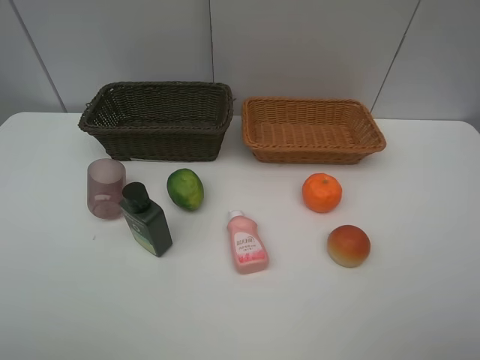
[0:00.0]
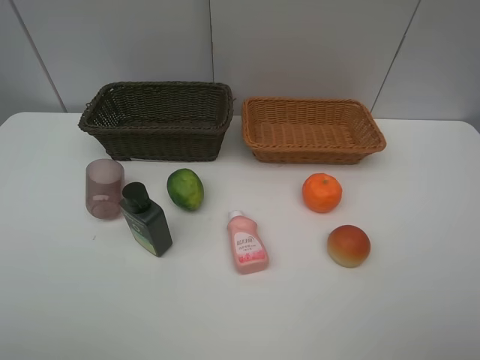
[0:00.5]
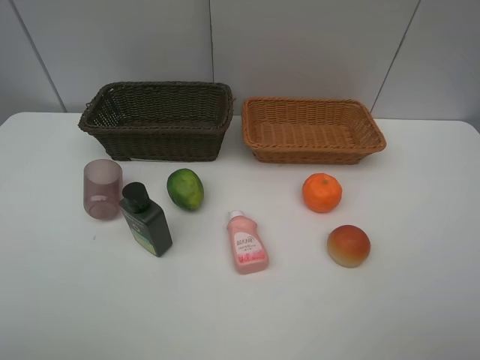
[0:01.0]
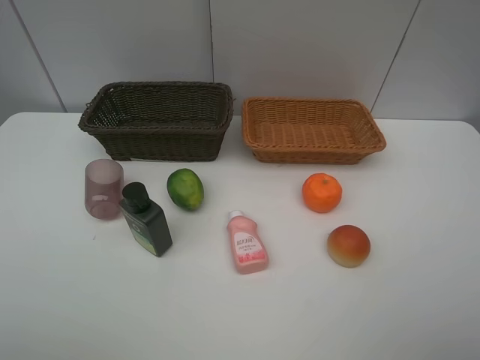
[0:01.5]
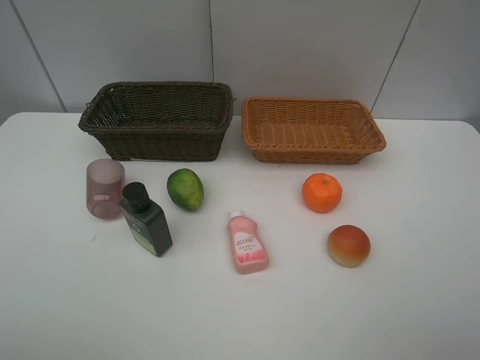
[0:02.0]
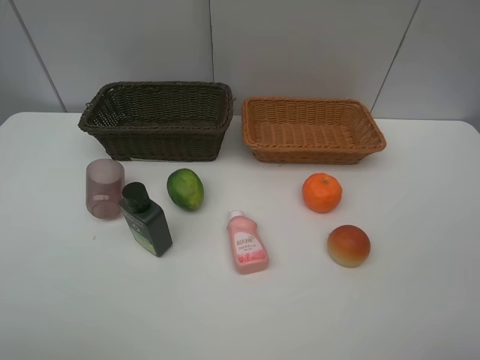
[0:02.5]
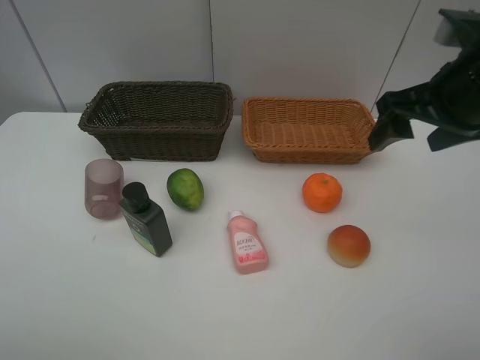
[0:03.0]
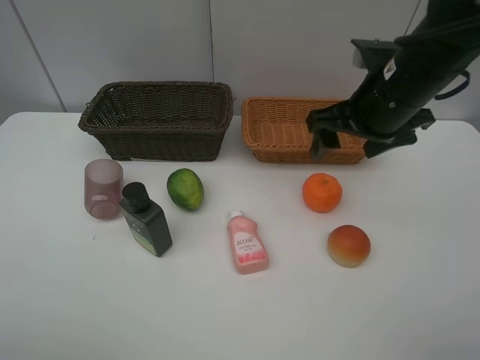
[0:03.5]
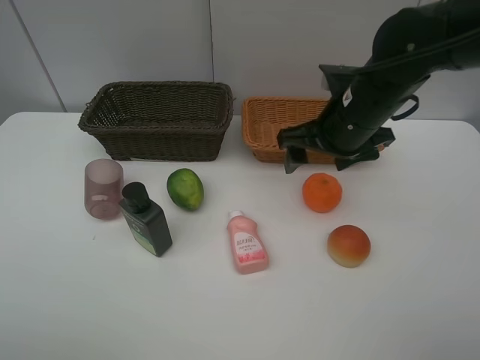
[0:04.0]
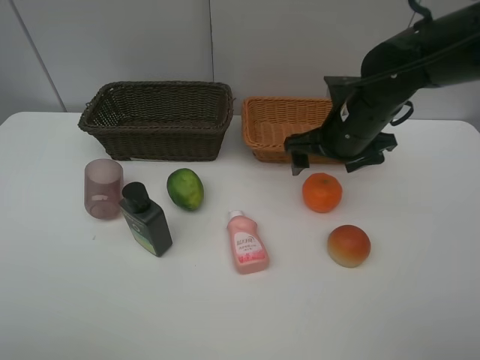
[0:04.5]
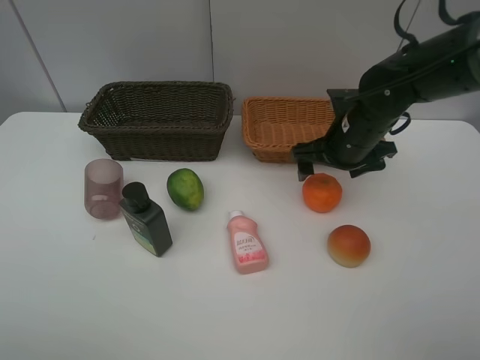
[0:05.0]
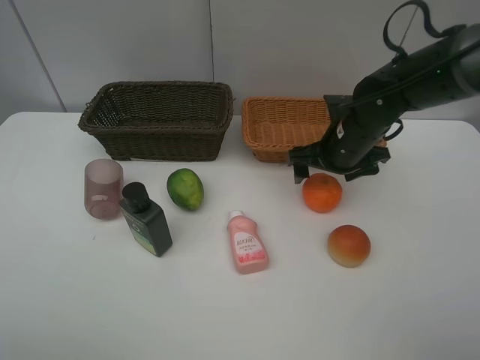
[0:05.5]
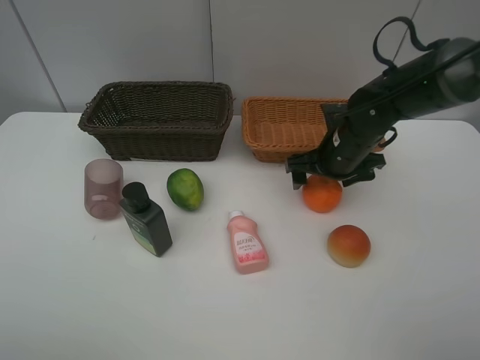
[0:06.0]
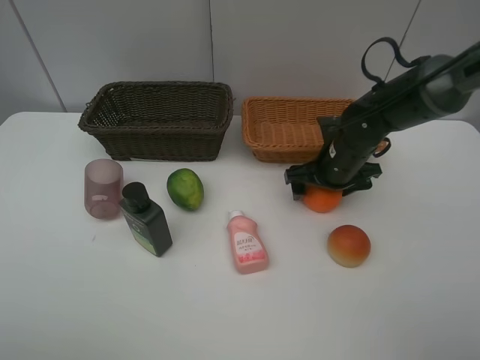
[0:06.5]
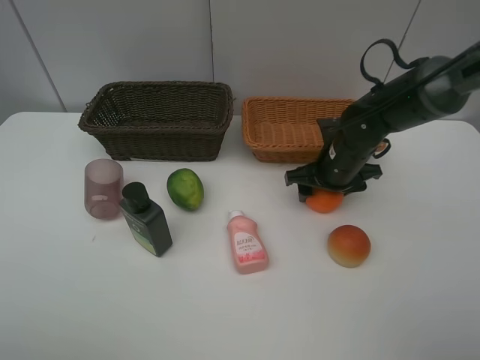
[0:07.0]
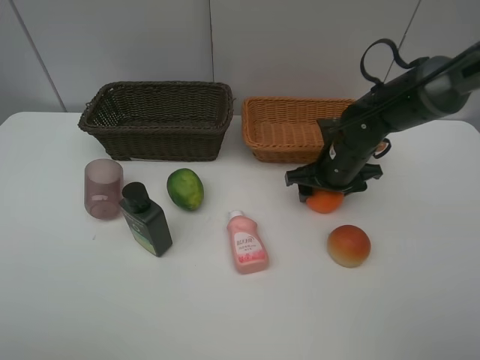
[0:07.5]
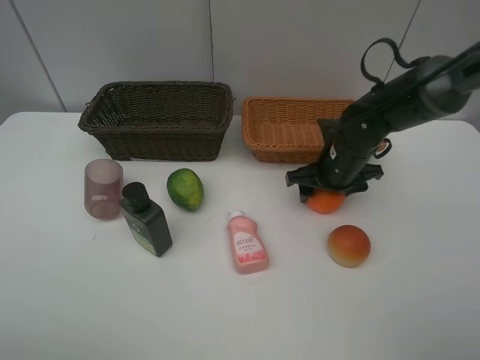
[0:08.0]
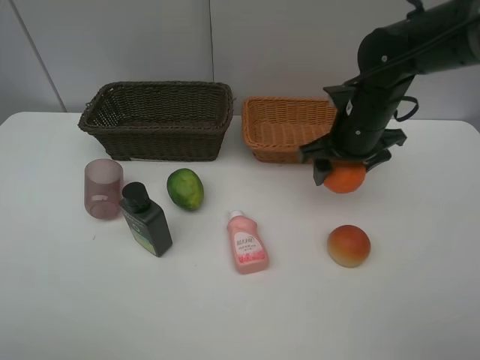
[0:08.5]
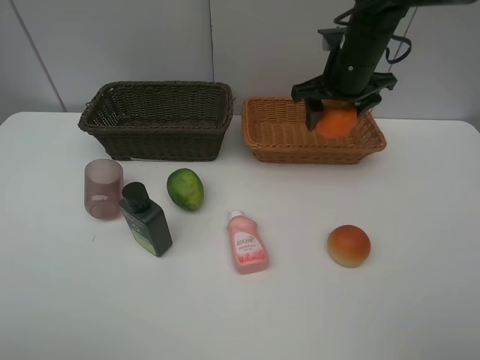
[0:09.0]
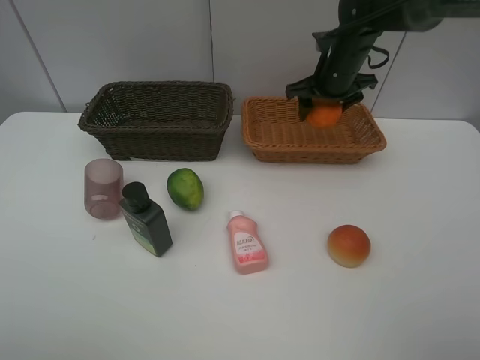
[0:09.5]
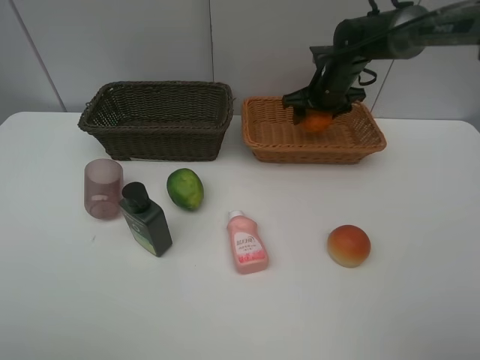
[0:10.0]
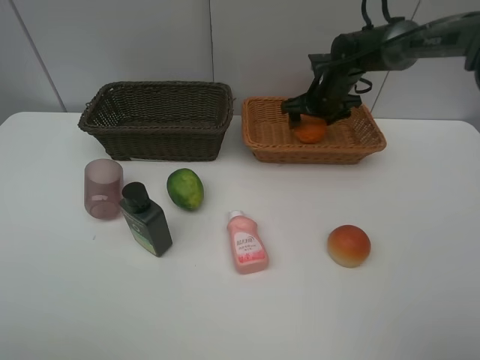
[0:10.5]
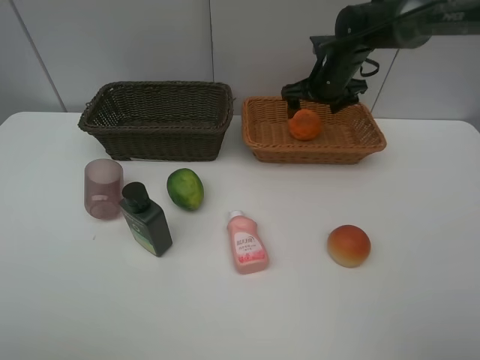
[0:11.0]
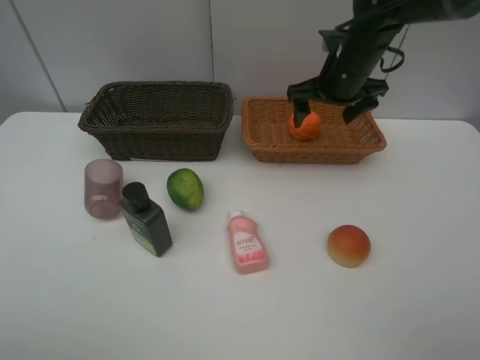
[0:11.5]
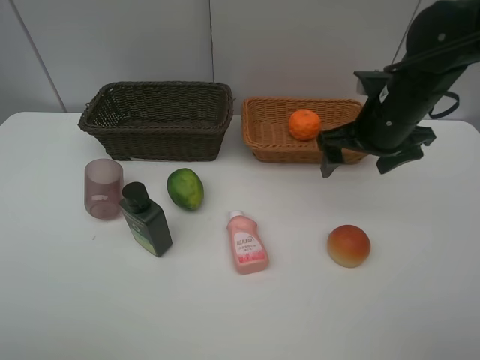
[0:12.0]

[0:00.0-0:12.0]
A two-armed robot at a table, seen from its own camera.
Task of the whole recording: place multiple objects separately in different baskets.
0:02.0 to 0:04.0: The right gripper goes approximately 35 cm forward and to the left.
0:04.0 to 0:06.0: The right gripper is displaced downward by about 10 cm.
0:06.0 to 0:08.0: The right gripper closes.
0:08.0 to 0:10.0: The right gripper shifts approximately 15 cm forward.
0:10.0 to 0:12.0: The right gripper is displaced backward by approximately 20 cm, and opens.

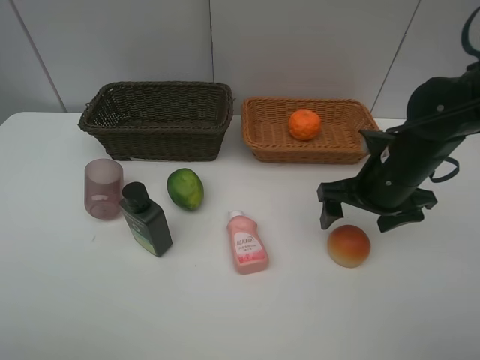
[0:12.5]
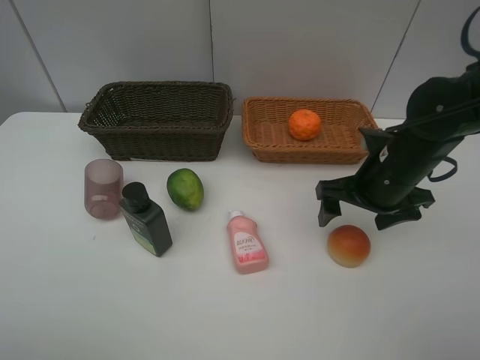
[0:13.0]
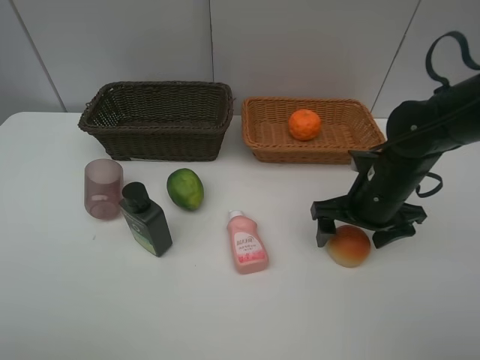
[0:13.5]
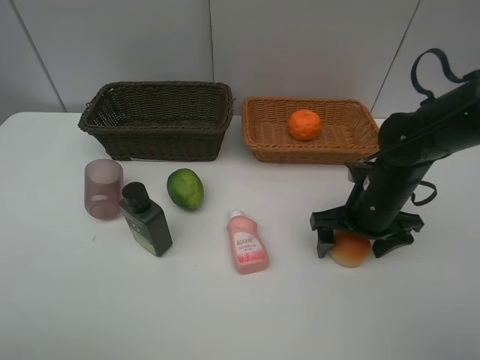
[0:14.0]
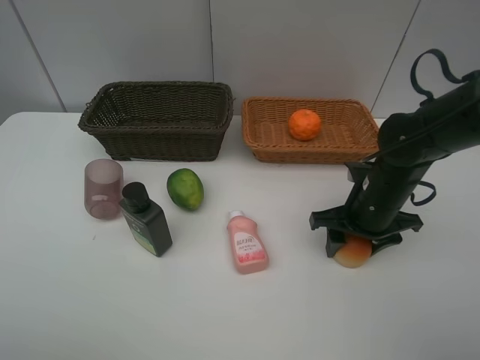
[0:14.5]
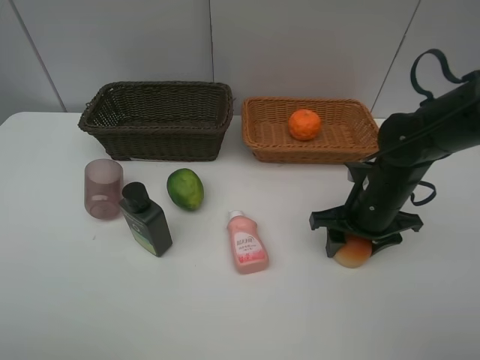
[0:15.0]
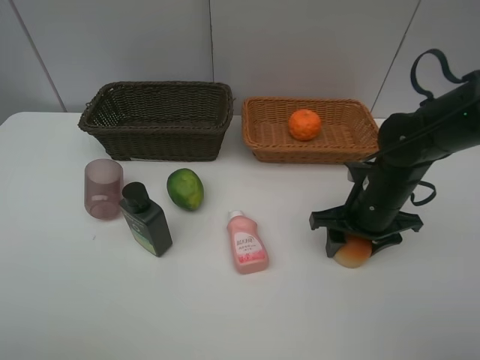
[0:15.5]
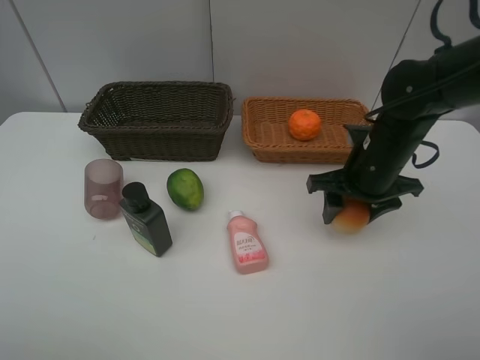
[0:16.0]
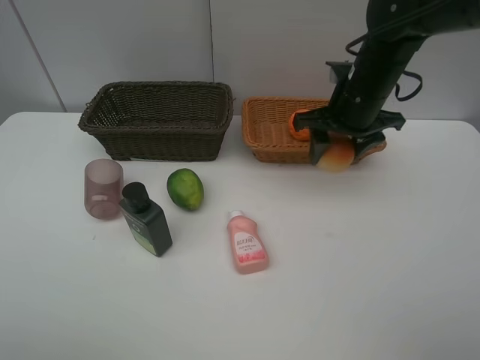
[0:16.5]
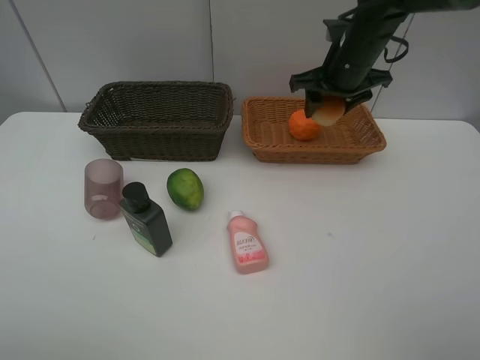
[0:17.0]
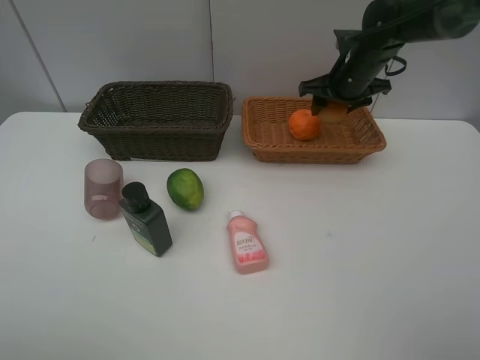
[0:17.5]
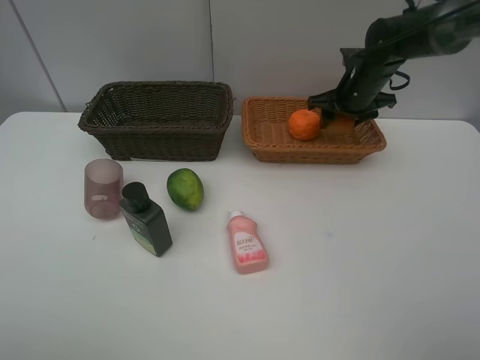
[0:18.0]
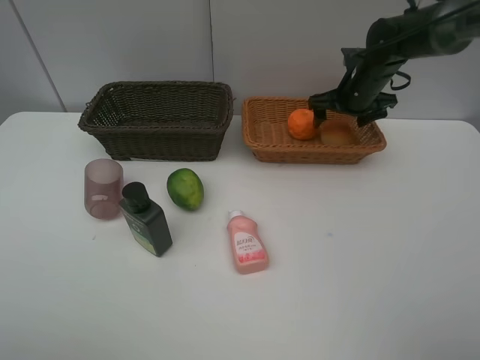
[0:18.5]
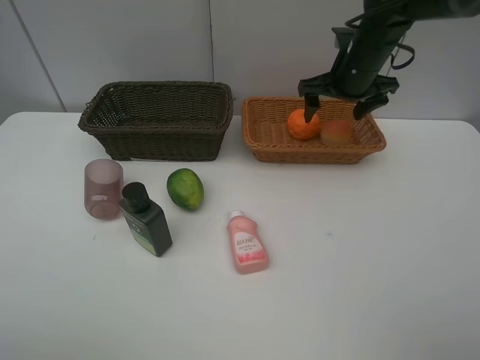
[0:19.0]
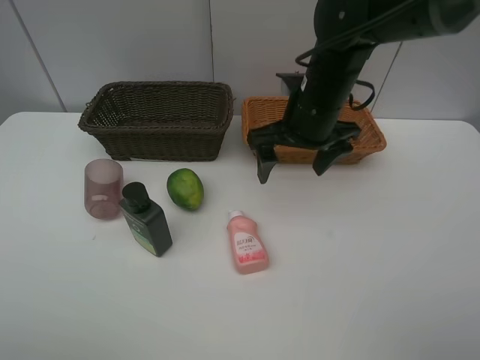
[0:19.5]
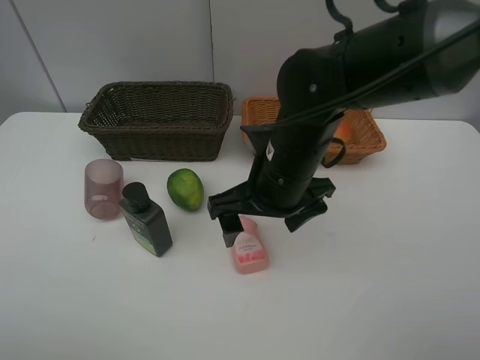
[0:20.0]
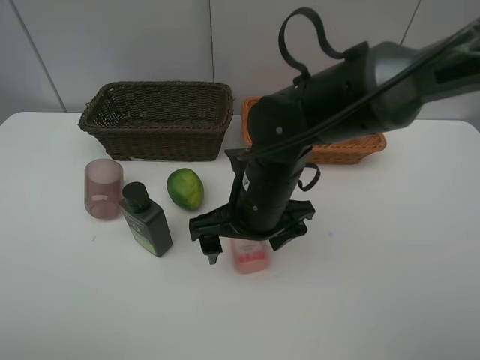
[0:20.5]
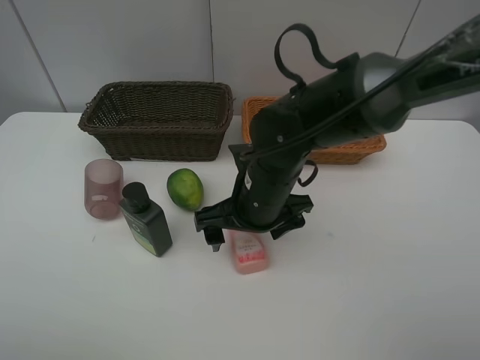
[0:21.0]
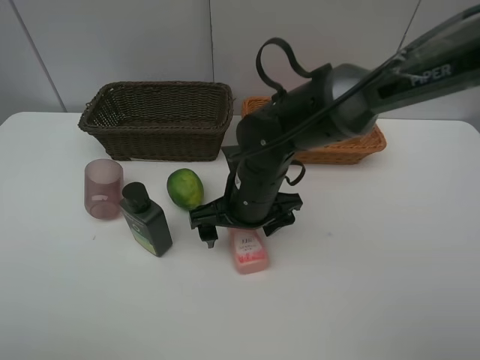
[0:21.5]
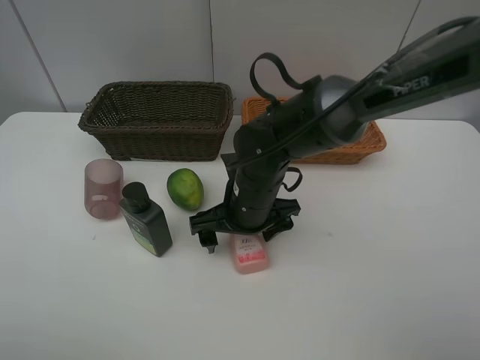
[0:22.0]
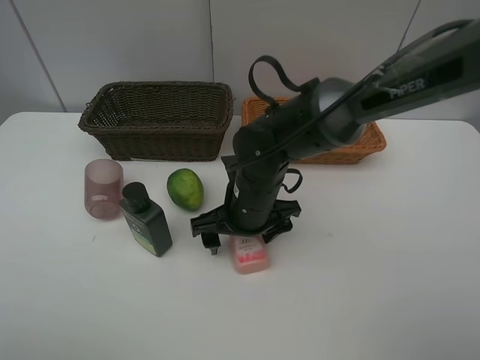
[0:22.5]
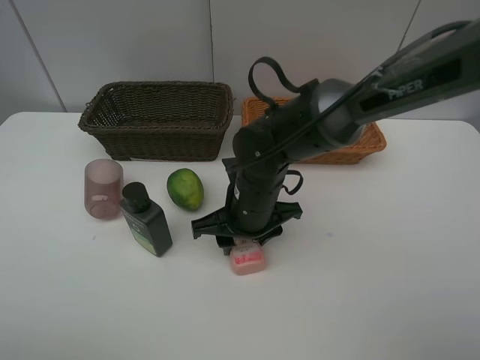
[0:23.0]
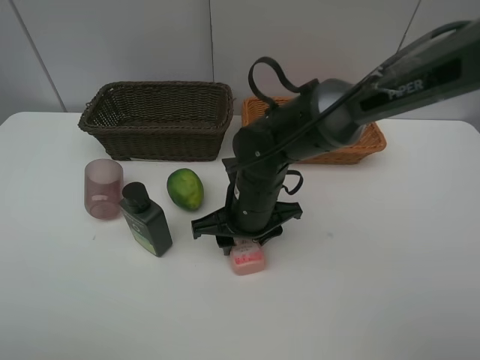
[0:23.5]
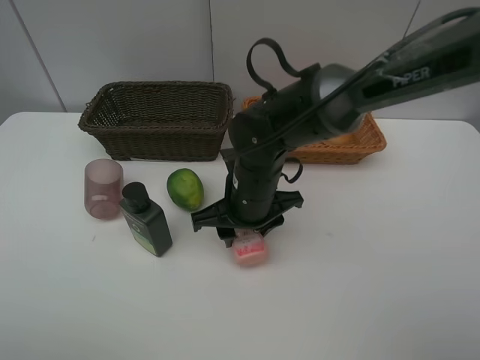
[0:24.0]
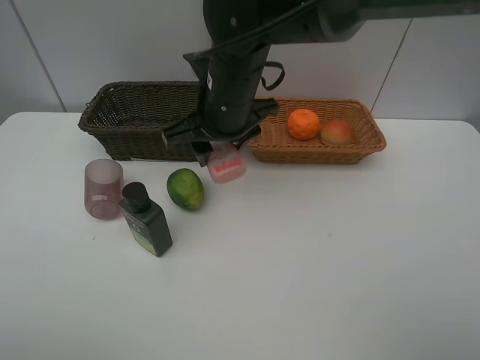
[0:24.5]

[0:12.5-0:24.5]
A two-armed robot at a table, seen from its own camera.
Task of the whole recording: place multiple objects separately in different baskets.
0:12.5 to 0:14.5: The right gripper closes up.
0:14.5 to 0:16.5: The right gripper is displaced upward and forward by approximately 15 cm.
0:16.5 to 0:18.5: The right gripper heads forward and to the right, covering about 10 cm, and opens its fingers.
0:18.5 to 0:20.5: The right gripper moves backward and to the left, some 30 cm.
0:20.5 to 0:22.5: The right gripper ends up about 5 cm from where it was.
0:22.5 to 0:24.5: The right gripper moves upward and forward, approximately 15 cm, and closes its fingers.

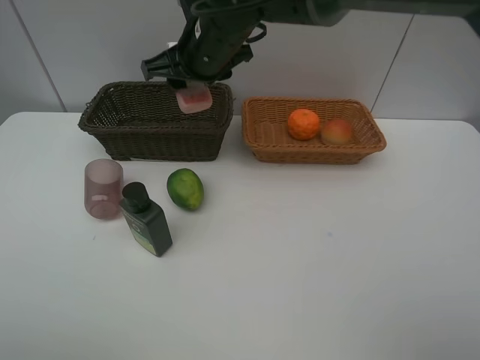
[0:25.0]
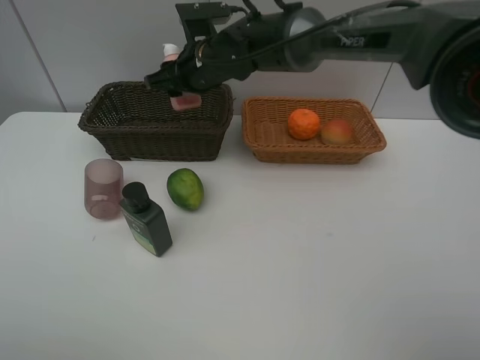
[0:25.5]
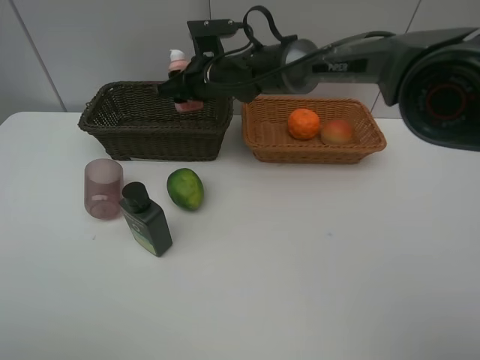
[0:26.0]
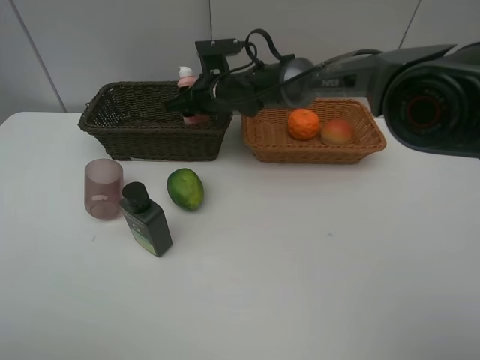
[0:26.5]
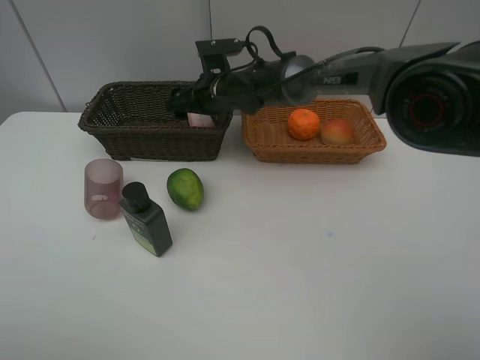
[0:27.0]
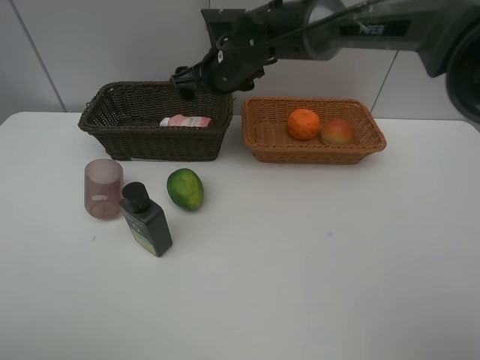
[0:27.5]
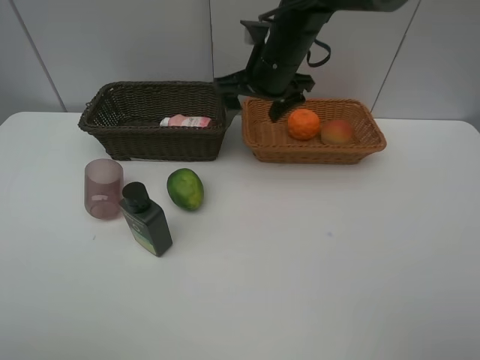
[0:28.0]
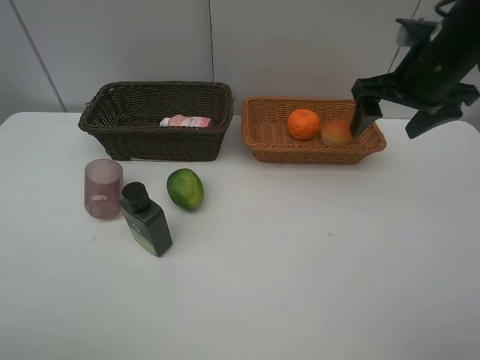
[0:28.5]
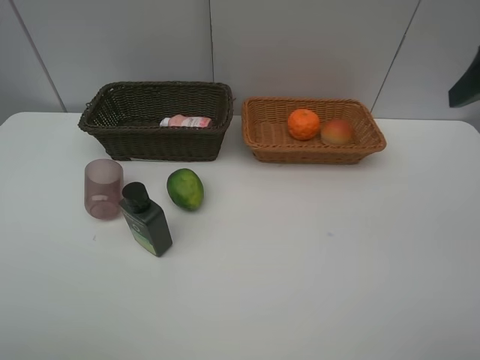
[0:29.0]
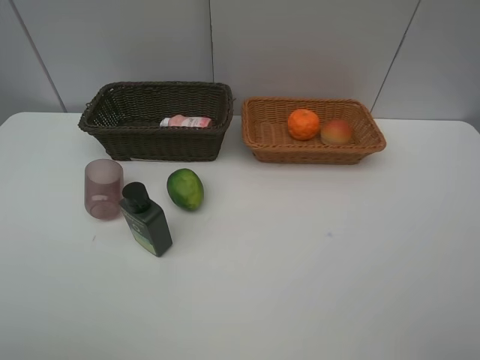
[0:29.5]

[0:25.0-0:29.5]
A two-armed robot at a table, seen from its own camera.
Task of the whole recording: place multiple objects separately in different baskets.
0:25.0 to 0:27.0: The right gripper shifts roughly 10 cm downward and forward, and opens its fingers.
0:27.0 to 0:29.5: The right gripper moves backward, to the right and upward, roughly 50 cm.
